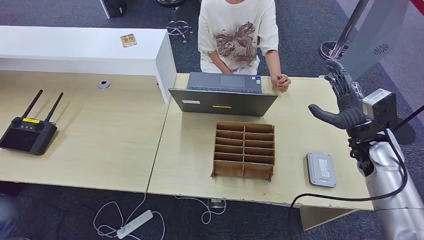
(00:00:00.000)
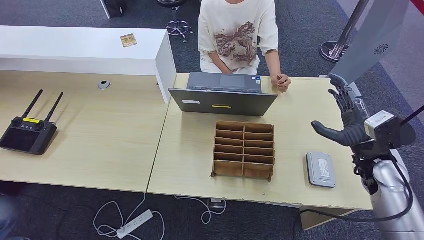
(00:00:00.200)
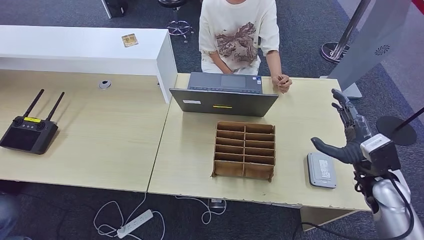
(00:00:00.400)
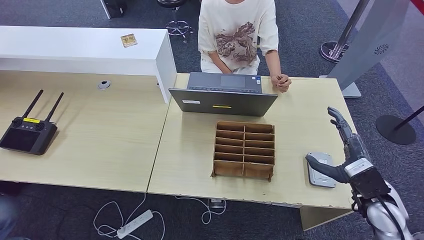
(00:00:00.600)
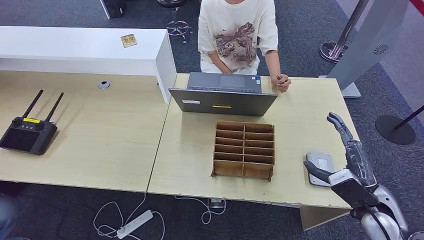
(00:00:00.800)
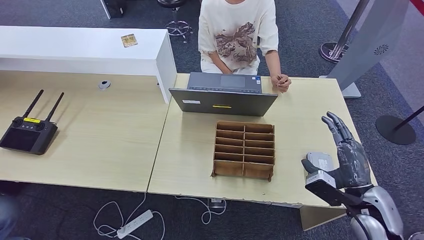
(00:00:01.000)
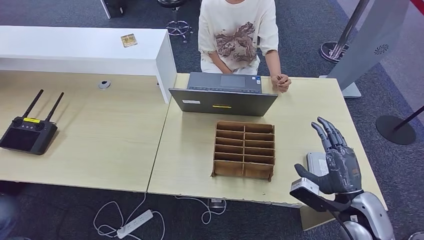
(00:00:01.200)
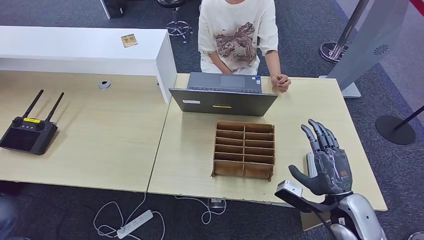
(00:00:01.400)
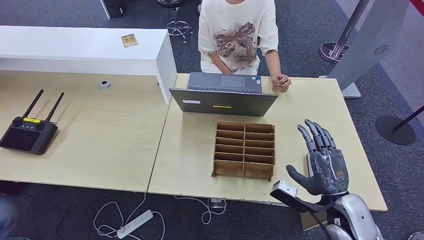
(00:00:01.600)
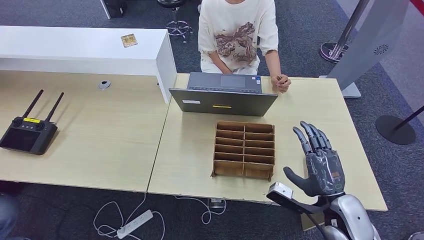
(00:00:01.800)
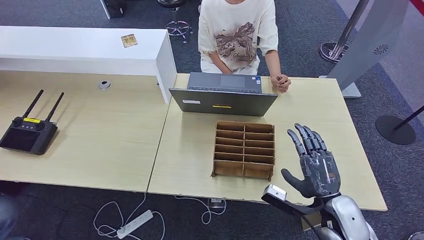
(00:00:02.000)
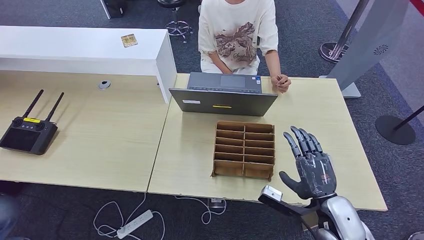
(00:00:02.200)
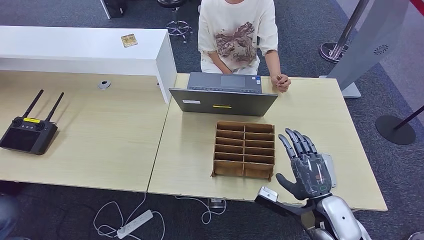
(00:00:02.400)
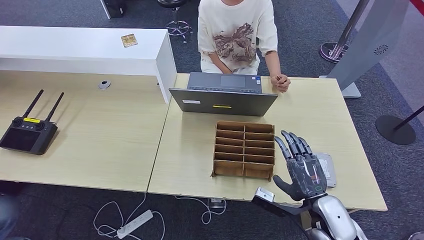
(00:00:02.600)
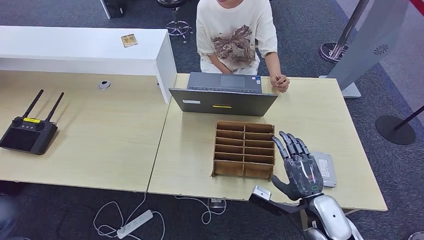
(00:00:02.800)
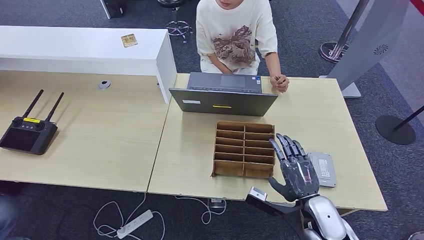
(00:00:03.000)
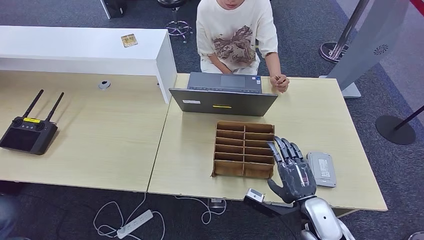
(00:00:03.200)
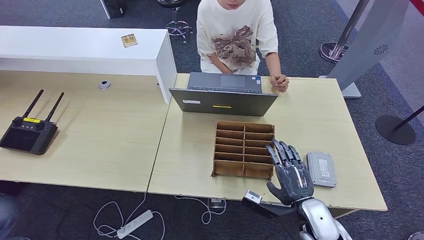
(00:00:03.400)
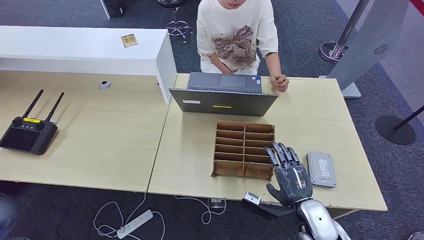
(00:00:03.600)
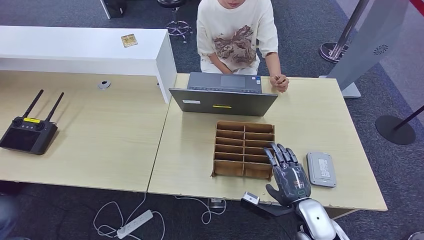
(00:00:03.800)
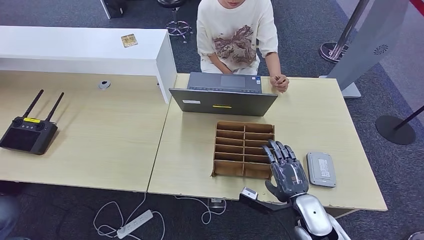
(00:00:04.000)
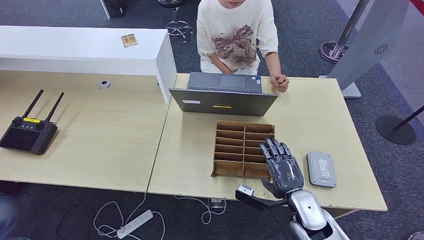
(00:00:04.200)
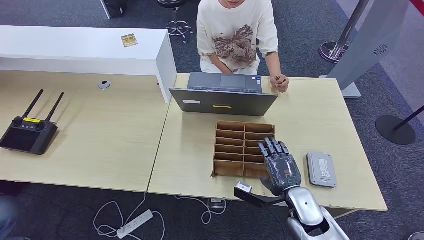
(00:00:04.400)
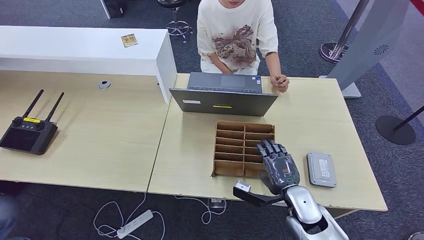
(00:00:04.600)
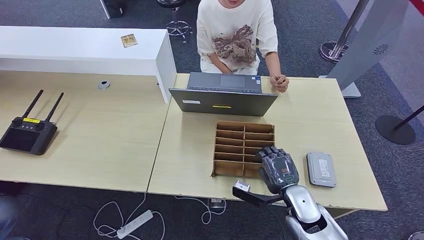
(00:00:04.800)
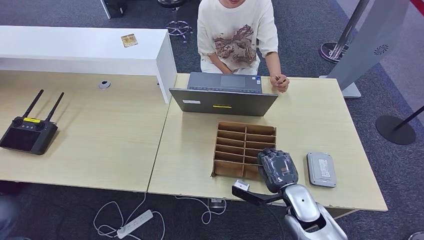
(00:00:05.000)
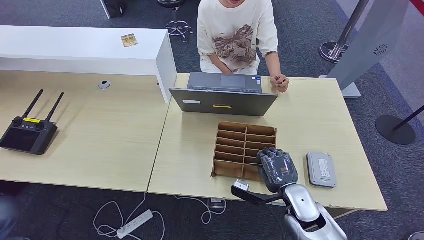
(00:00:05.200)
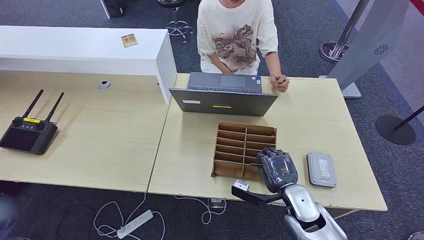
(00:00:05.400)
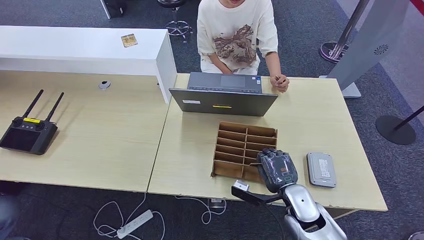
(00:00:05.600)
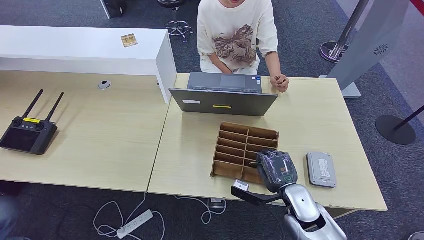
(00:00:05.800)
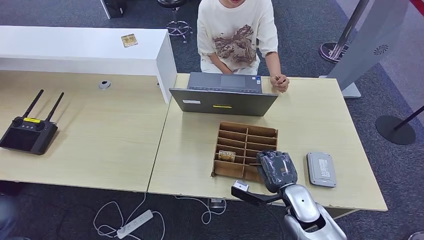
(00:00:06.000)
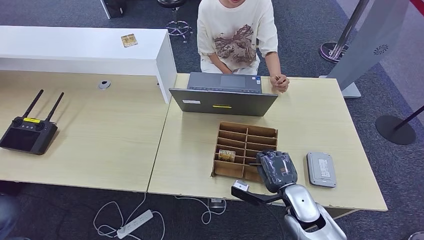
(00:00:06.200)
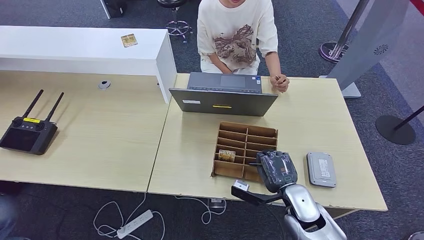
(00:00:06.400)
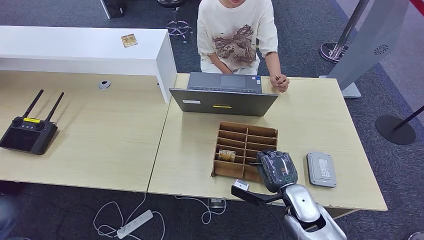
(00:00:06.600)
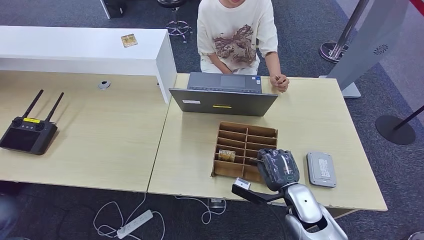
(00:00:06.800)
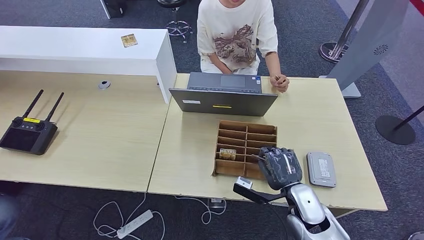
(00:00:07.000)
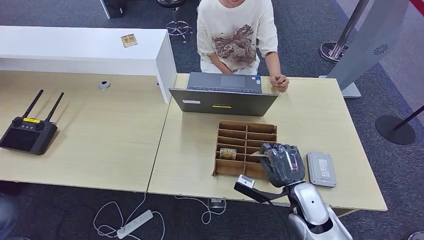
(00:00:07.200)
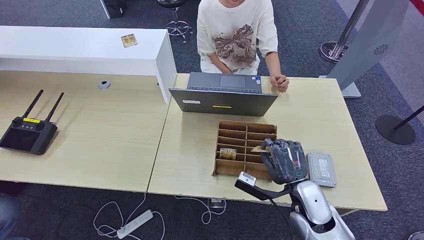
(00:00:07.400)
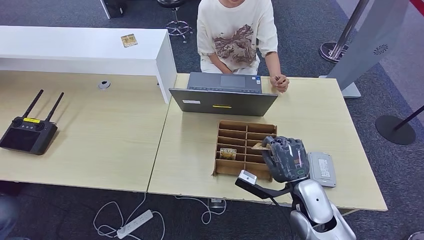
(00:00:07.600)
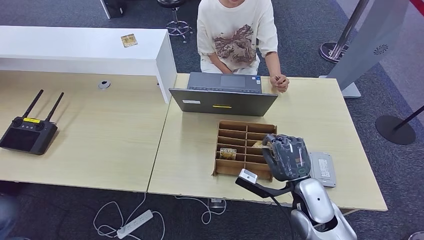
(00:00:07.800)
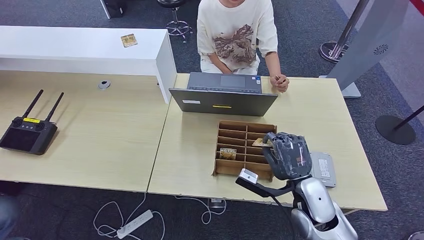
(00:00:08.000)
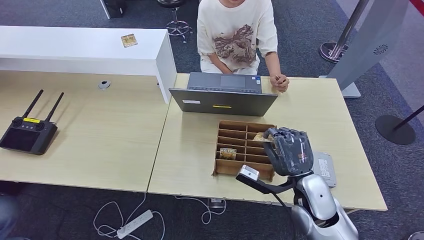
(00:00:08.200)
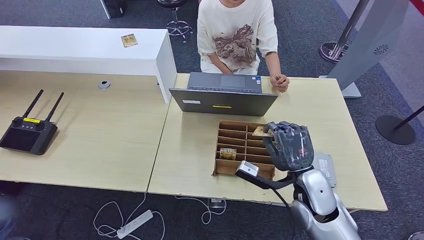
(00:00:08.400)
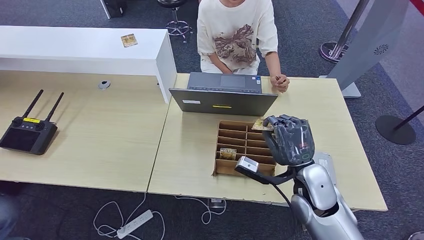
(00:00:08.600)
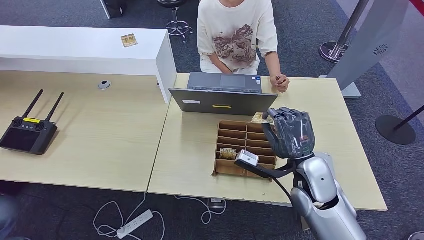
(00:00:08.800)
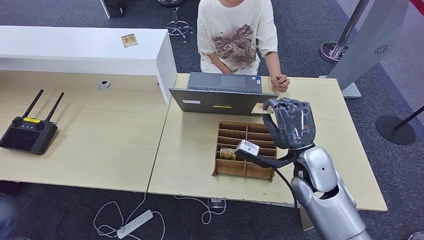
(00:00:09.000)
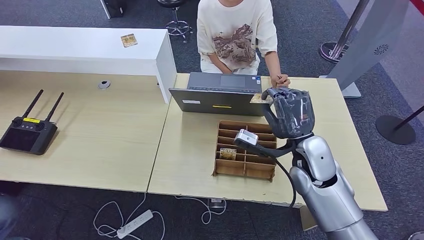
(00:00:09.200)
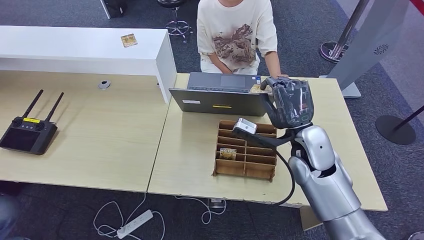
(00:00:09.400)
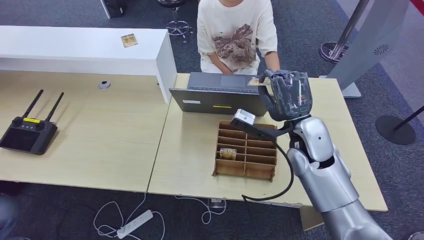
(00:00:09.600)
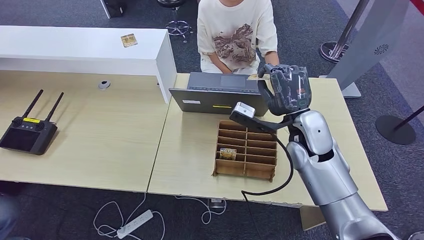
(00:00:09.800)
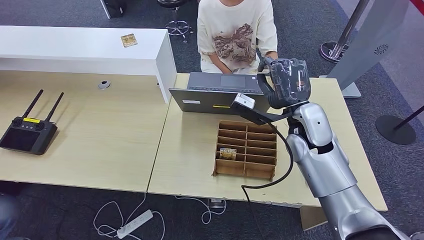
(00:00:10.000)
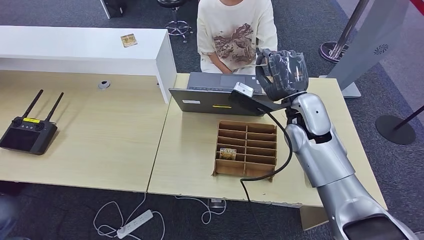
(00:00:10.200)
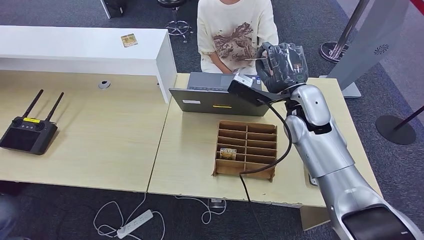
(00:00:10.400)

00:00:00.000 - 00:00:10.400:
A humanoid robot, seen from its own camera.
Step, 00:00:00.000 - 00:00:07.000: Pick up the room key from the key card box.
Step, 00:00:07.200 - 00:00:10.400: Hand the room key to the person.
00:00:00.000 - 00:00:01.400: The right hand travels backward, downward and to the left by some 15 cm.
00:00:01.400 - 00:00:03.000: The right hand goes some 5 cm to the left.
00:00:03.000 - 00:00:04.400: The hands move only a little.
00:00:04.400 - 00:00:06.000: Both hands stay put.
00:00:06.000 - 00:00:07.400: The hands move only a little.
00:00:07.400 - 00:00:09.000: The right hand travels upward and forward by roughly 10 cm.
00:00:09.000 - 00:00:10.400: The right hand travels forward and upward by approximately 15 cm.
